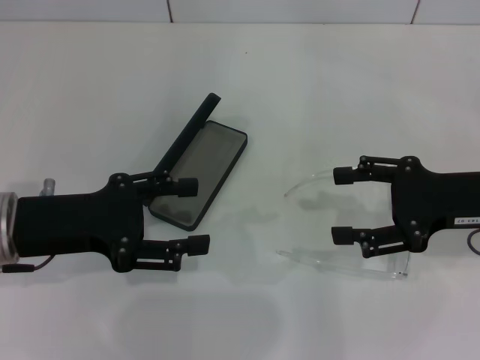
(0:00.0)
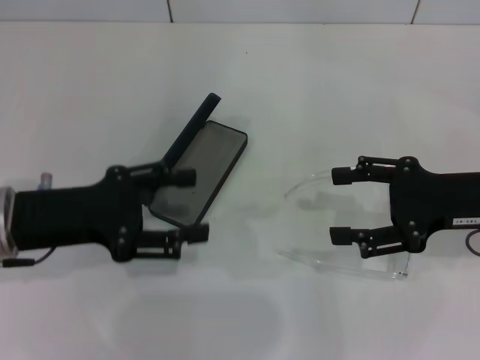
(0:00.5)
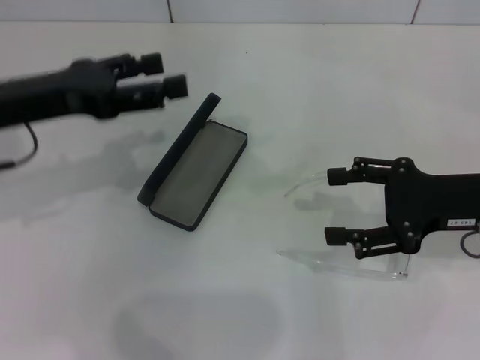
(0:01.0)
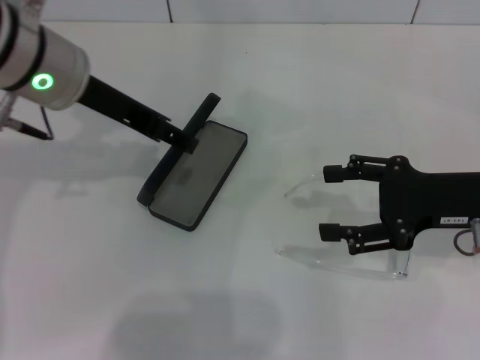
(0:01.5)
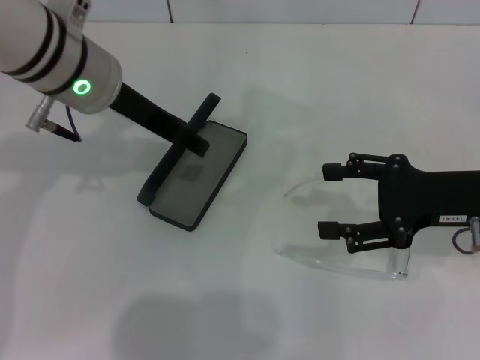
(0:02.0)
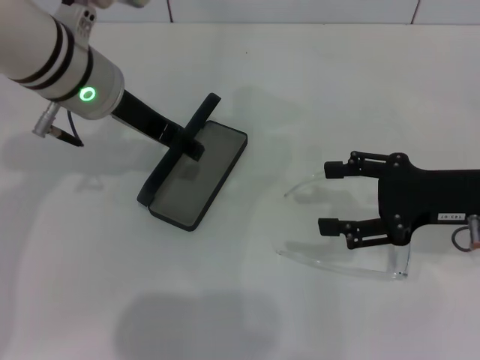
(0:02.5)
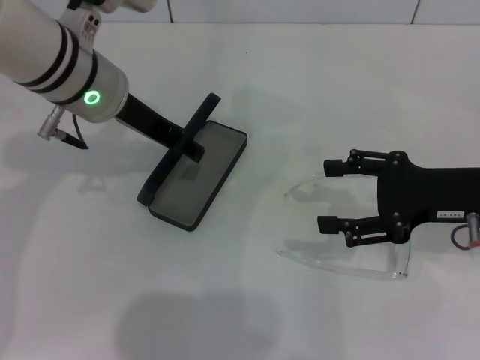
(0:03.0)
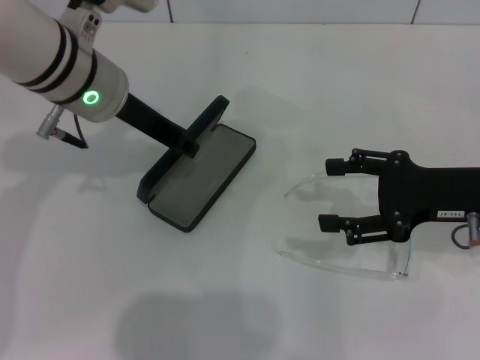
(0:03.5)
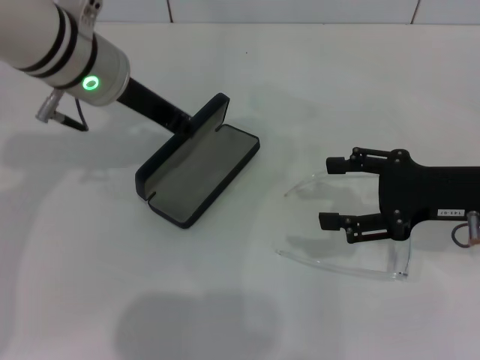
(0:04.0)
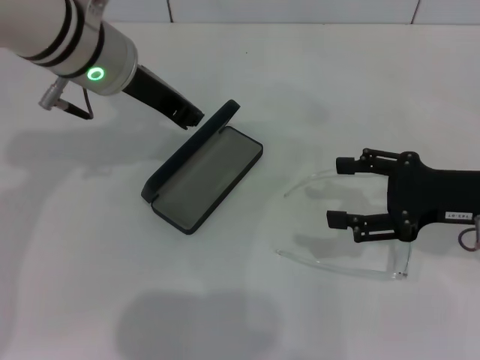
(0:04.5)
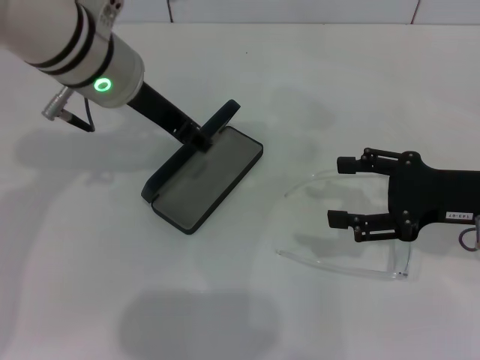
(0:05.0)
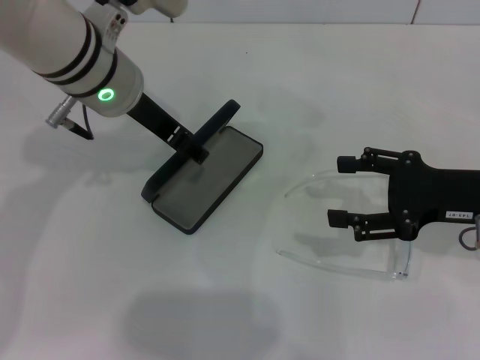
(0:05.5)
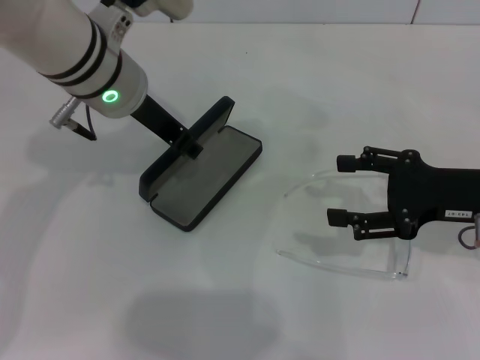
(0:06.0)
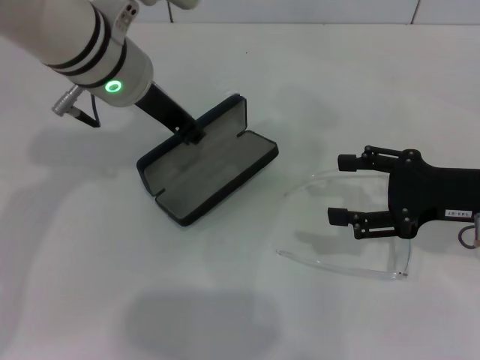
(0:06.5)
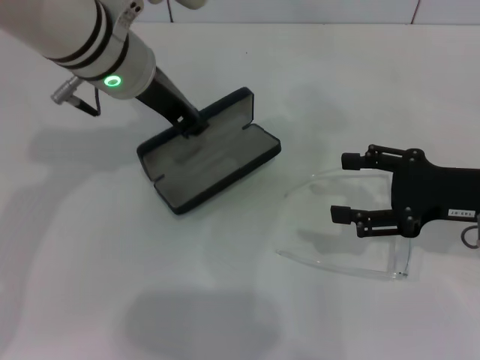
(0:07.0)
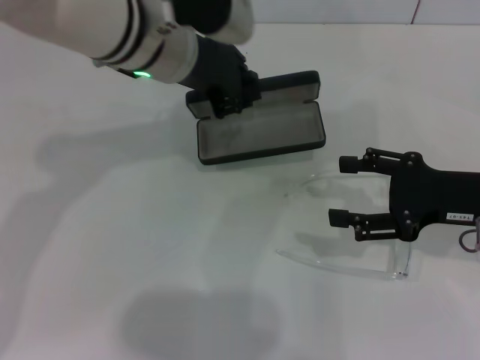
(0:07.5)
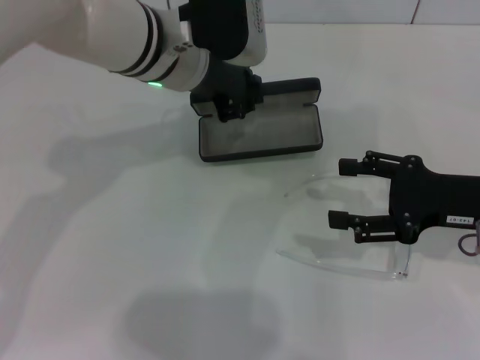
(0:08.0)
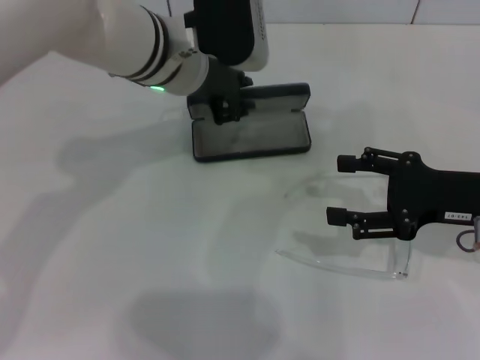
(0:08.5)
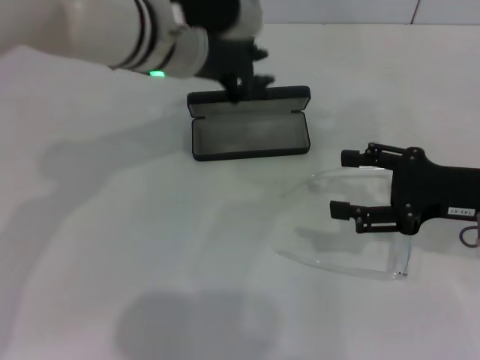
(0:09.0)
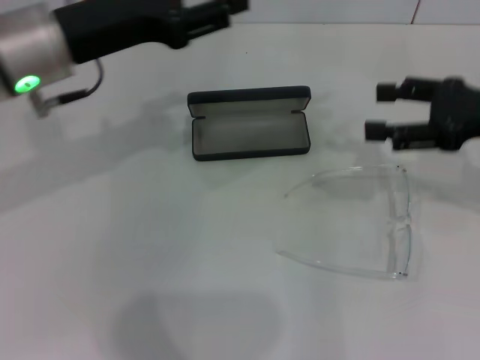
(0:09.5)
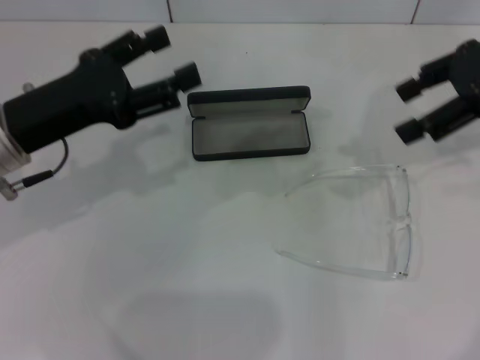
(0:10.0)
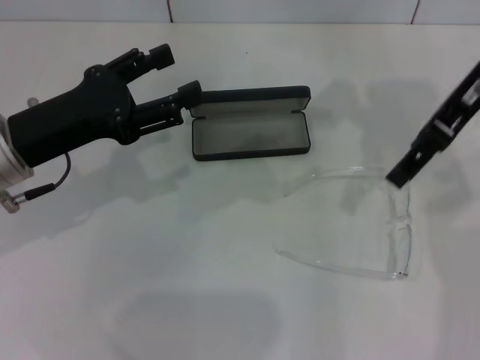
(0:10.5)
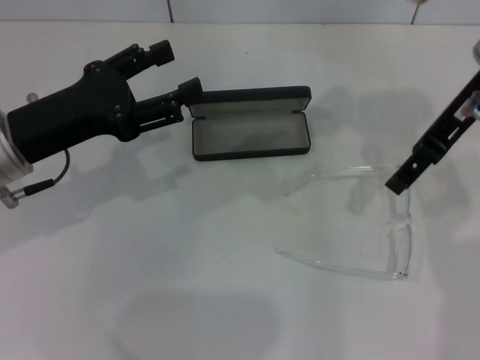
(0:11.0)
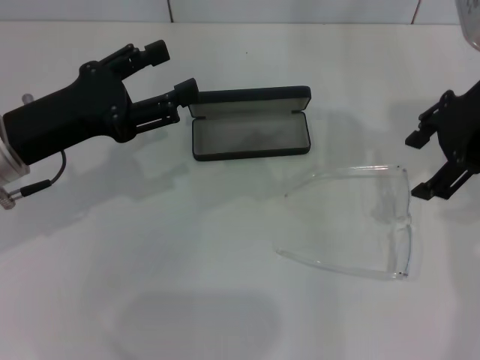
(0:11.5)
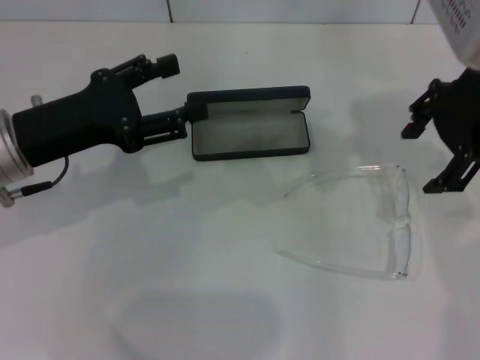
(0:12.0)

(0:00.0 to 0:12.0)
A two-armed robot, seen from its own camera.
Step, 0:00.0 - 0:03.5: Grab the glasses case with your left hand.
Step, 0:04.0 - 0:08.5: Place the glasses case in the center of the table with your left hand.
0:00.0 - 0:02.0: The left gripper heads forward, to the right and upward, covering roughly 15 cm.
0:02.0 - 0:04.0: The left gripper closes.
0:04.0 - 0:06.0: The grippers move only a little.
0:08.0 - 0:10.0: The right gripper is displaced upward and forward by about 20 cm. Meanwhile the left gripper moves to the left and backward, roughly 20 cm, and opens up.
0:10.0 - 0:12.0: The right gripper heads to the left, covering about 10 cm.

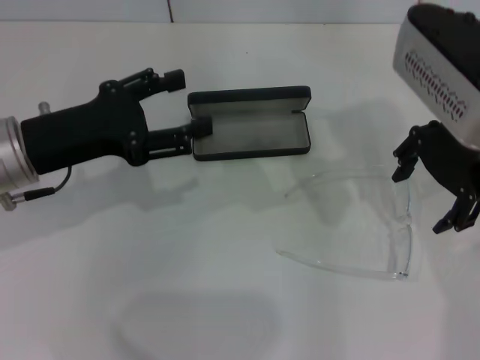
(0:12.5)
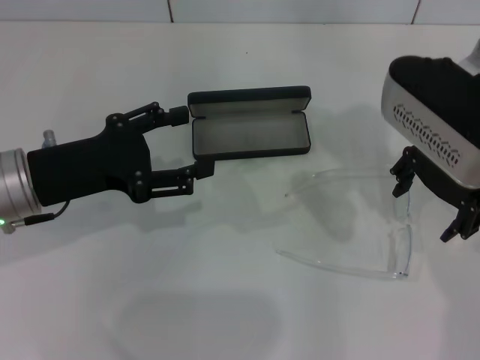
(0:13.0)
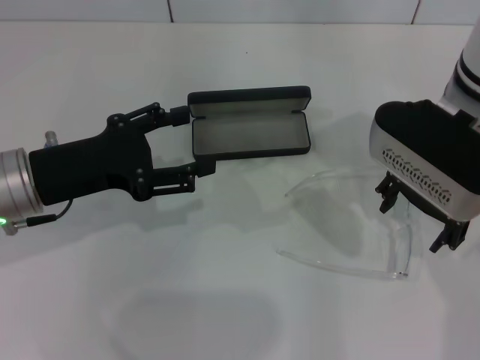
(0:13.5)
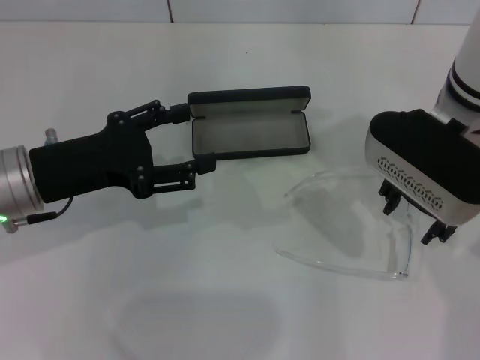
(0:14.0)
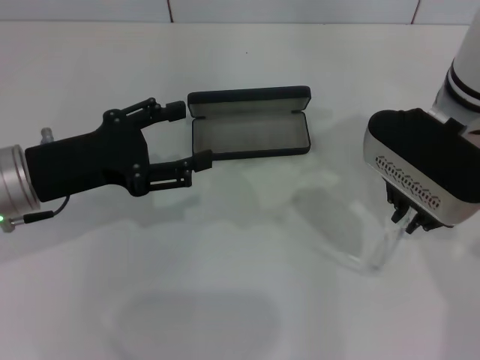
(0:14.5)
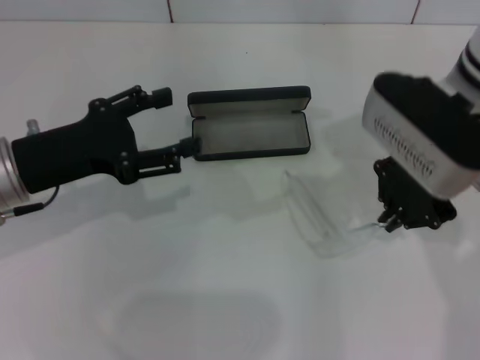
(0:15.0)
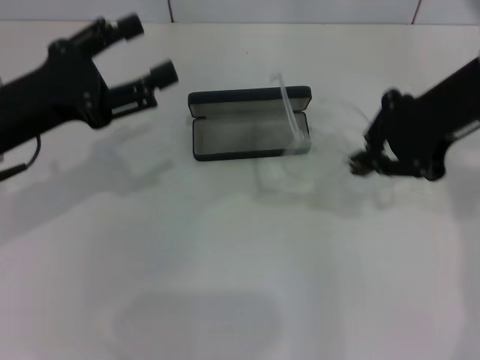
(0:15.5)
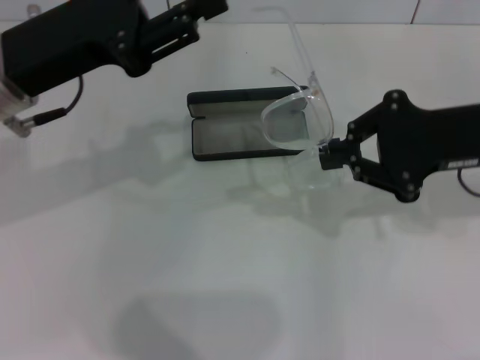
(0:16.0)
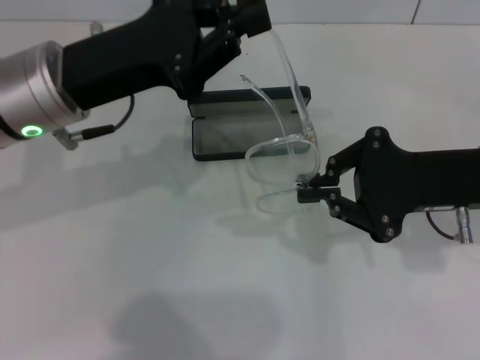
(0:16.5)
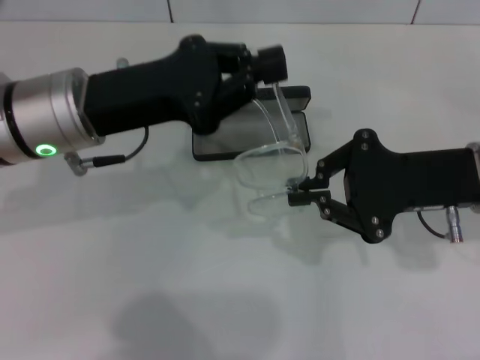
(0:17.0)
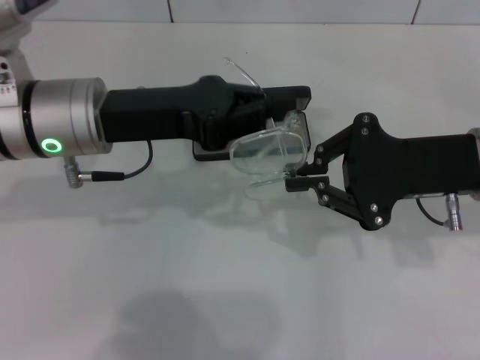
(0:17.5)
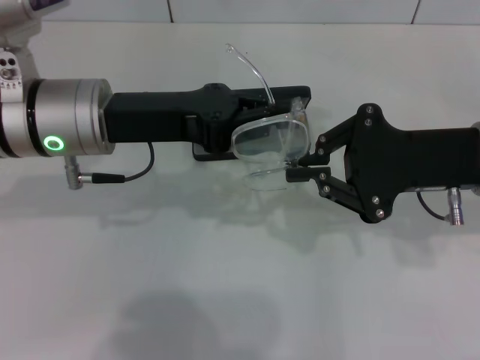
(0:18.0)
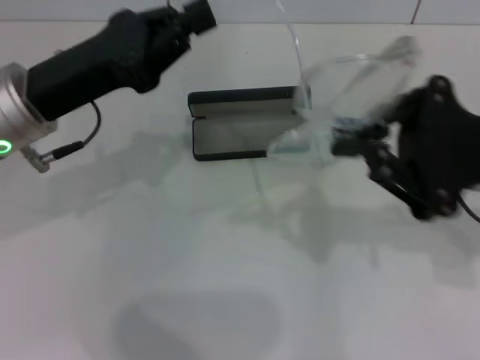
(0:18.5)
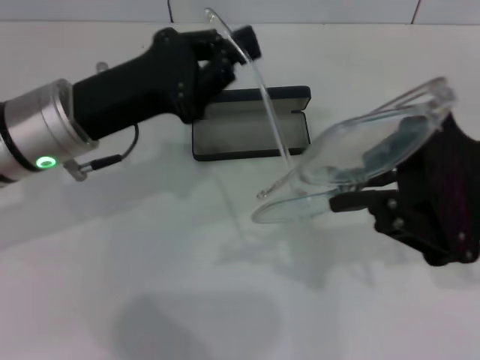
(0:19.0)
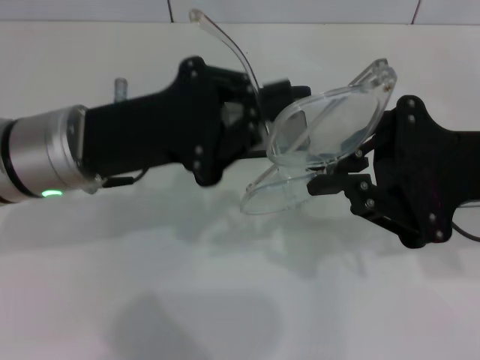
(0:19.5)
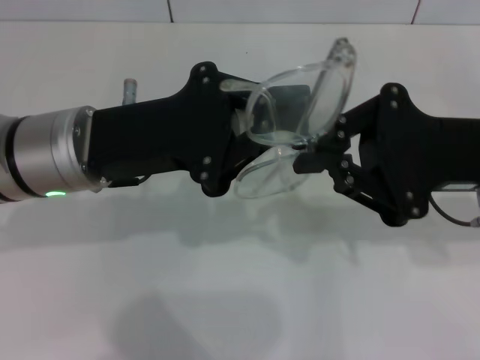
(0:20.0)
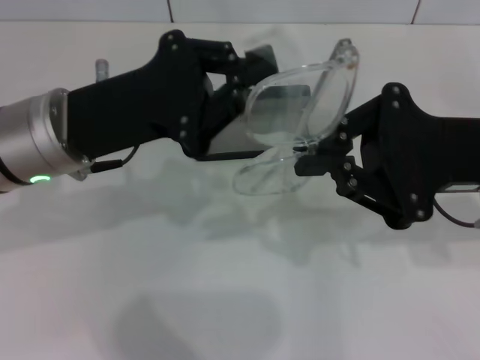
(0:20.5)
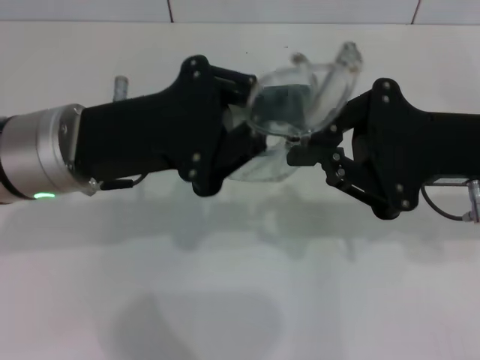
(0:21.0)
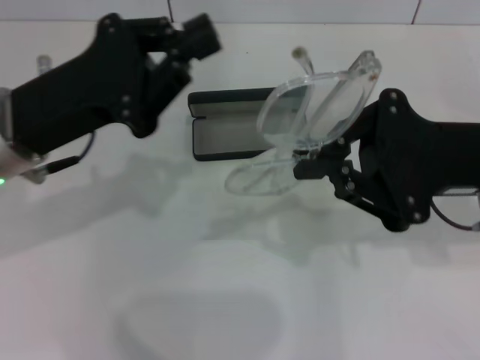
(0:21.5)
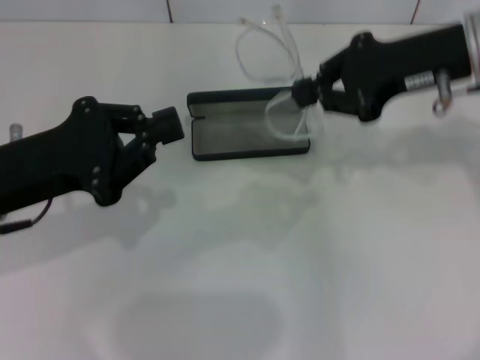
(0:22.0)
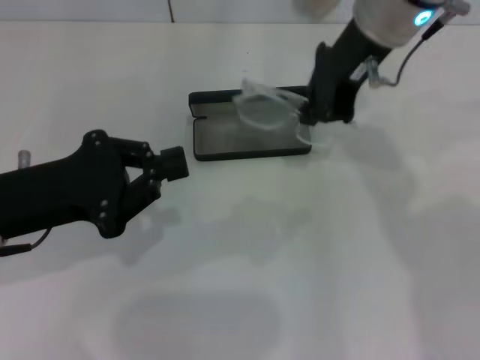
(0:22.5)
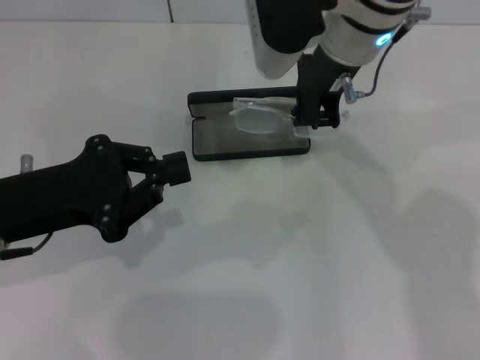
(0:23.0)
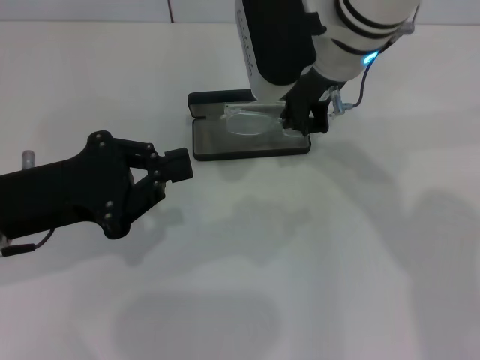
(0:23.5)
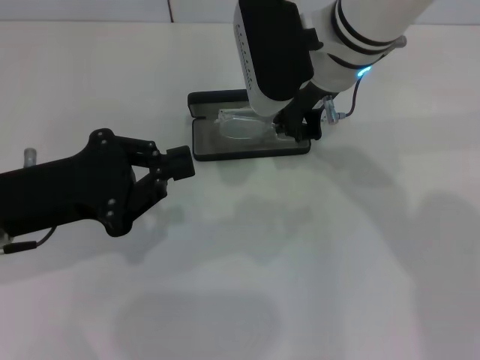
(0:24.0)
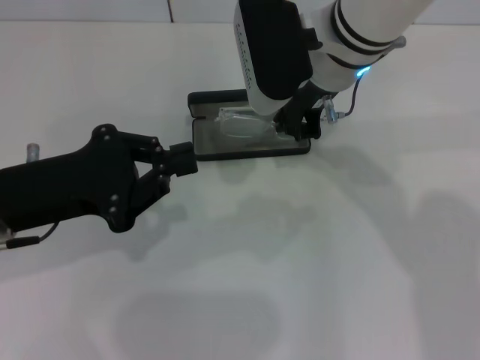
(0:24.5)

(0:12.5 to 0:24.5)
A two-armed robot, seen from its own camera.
Step, 0:12.5 - 0:14.5: Grab the eyeglass frame with your right hand.
Step, 0:15.0 - 0:21.0: Fold the frame with your left hand.
0:12.5 - 0:14.5: The right gripper is displaced downward by roughly 5 cm, and closes its fingers.
0:14.5 - 0:16.5: The right gripper shifts roughly 10 cm to the right and backward. Meanwhile the left gripper heads upward and to the right, covering some 10 cm, and closes up.
0:20.5 - 0:22.5: The left gripper shifts roughly 5 cm to the left; the right gripper shifts some 20 cm forward, to the left and upward.
0:22.5 - 0:24.5: The right gripper is displaced downward by about 5 cm.

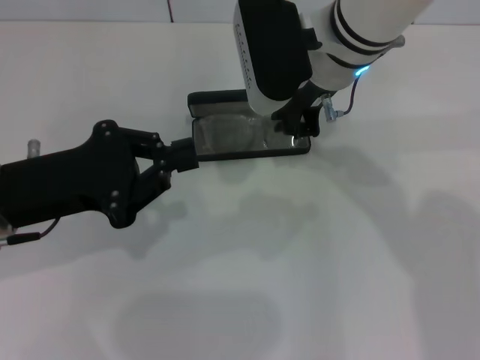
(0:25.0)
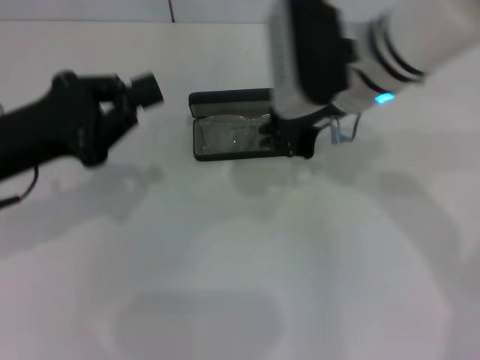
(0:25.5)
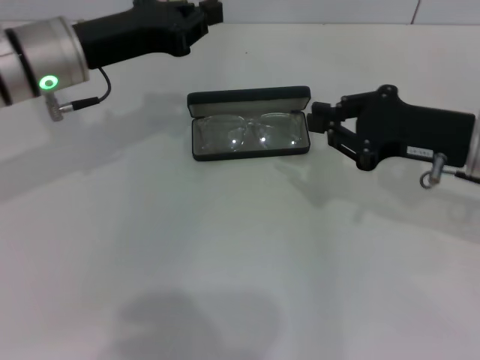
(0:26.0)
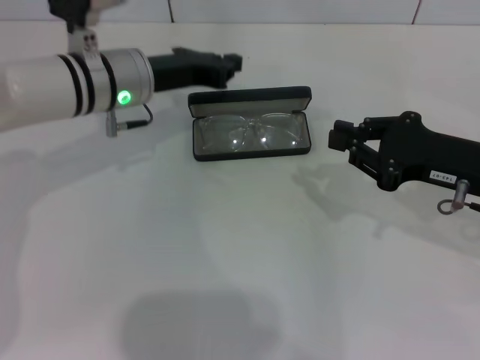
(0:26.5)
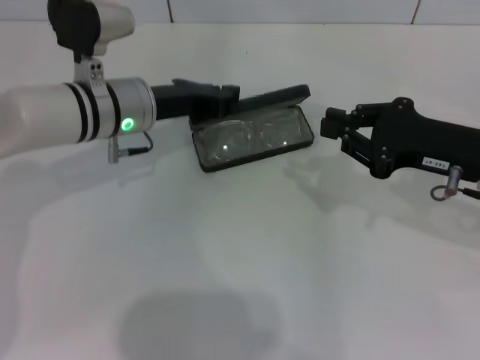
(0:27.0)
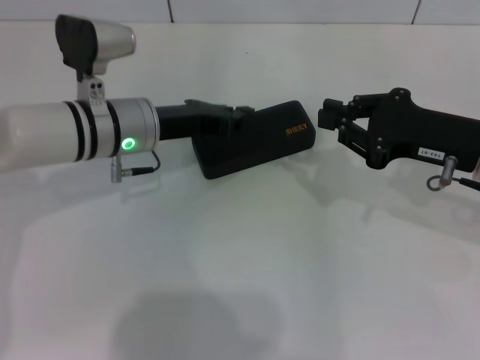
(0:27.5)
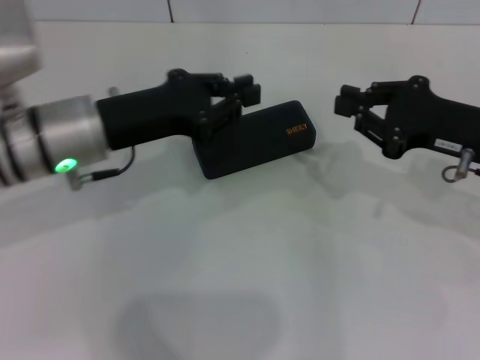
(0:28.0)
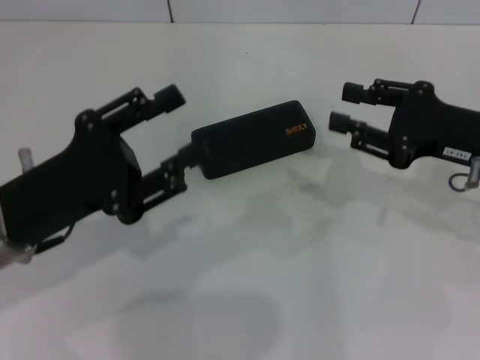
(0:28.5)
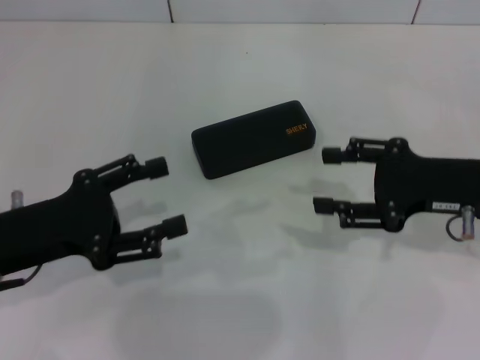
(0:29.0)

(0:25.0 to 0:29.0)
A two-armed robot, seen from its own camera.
Step, 0:25.5 - 0:27.0: Close the glasses case with your left hand.
0:25.0 - 0:27.0: The left gripper shifts roughly 15 cm forward and to the right. The right gripper moves to the right, backward and downward, some 20 cm.
0:27.0 - 0:29.0: The left gripper shifts about 20 cm backward and to the left, and opens its fingers. Meanwhile the right gripper opens.
